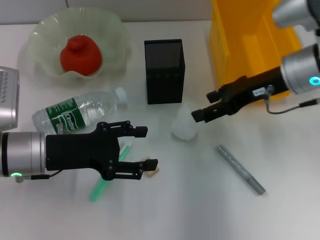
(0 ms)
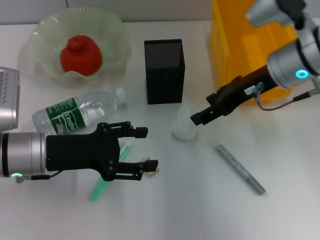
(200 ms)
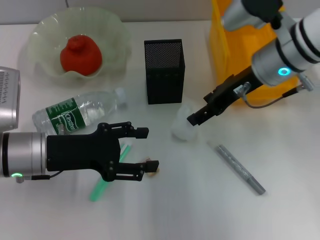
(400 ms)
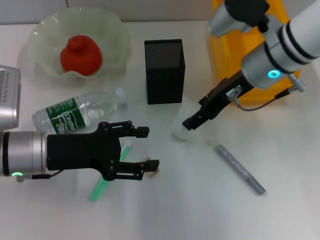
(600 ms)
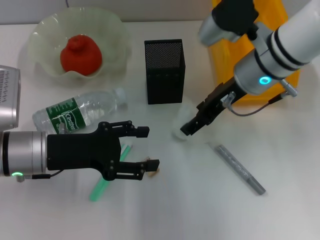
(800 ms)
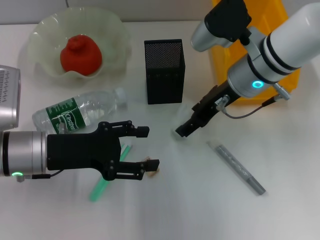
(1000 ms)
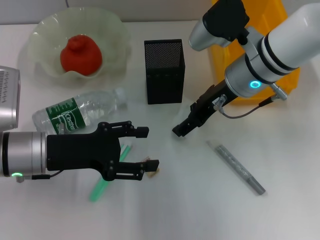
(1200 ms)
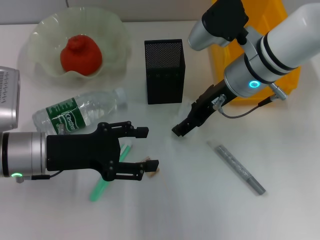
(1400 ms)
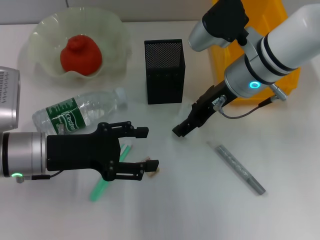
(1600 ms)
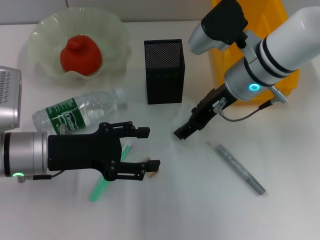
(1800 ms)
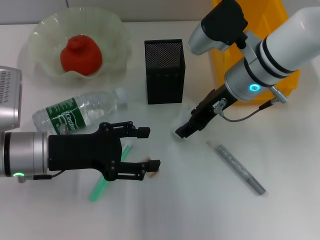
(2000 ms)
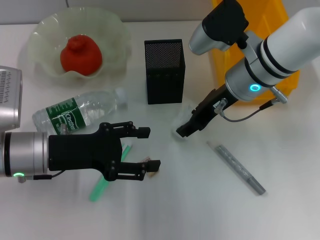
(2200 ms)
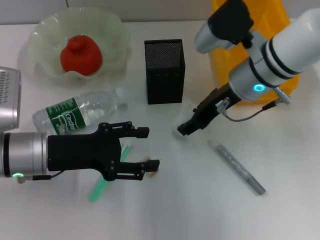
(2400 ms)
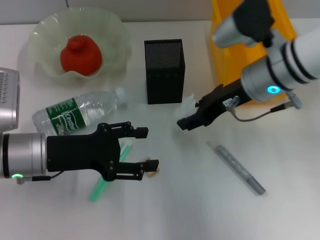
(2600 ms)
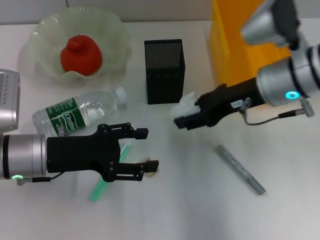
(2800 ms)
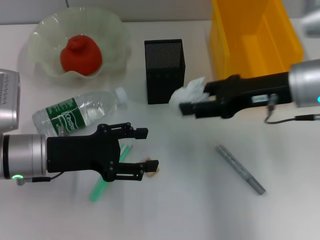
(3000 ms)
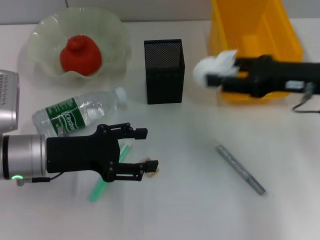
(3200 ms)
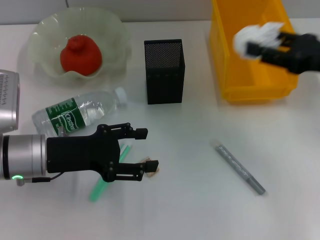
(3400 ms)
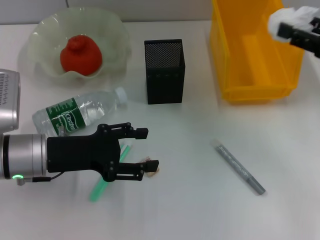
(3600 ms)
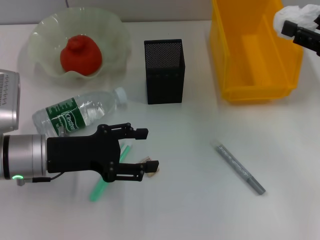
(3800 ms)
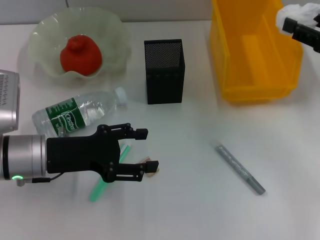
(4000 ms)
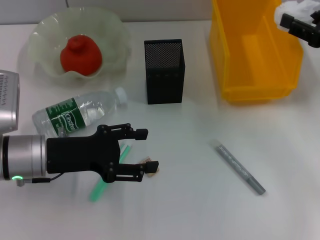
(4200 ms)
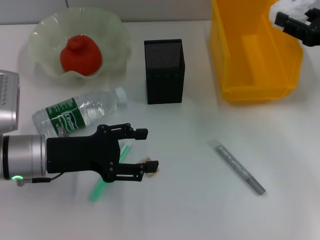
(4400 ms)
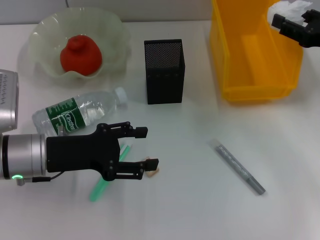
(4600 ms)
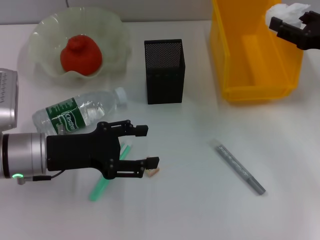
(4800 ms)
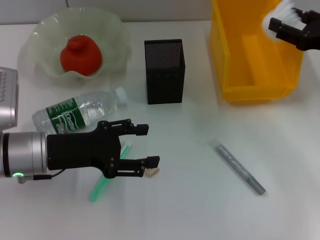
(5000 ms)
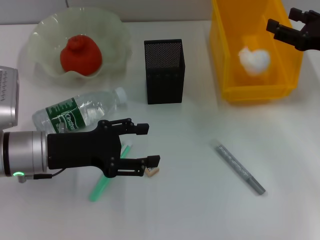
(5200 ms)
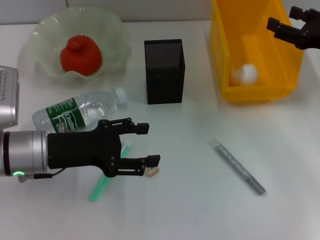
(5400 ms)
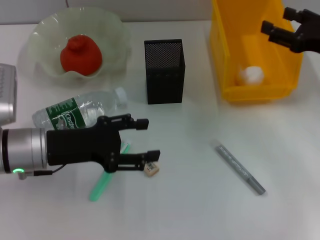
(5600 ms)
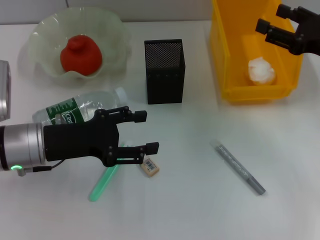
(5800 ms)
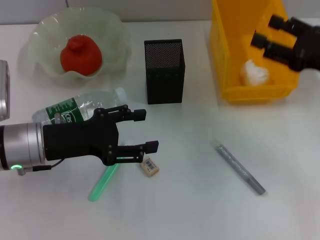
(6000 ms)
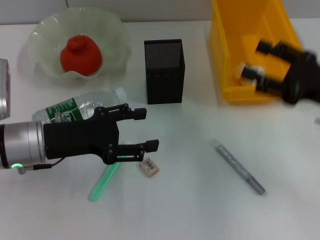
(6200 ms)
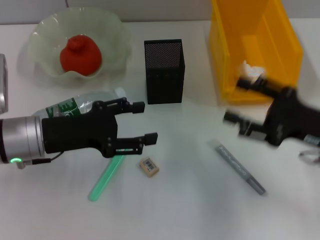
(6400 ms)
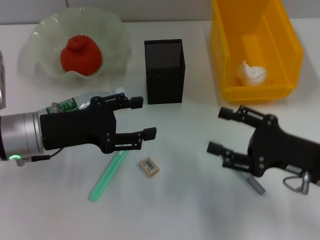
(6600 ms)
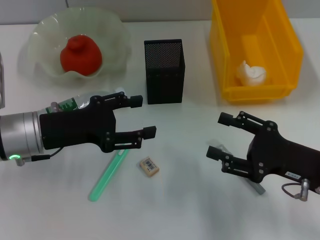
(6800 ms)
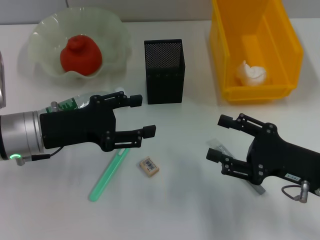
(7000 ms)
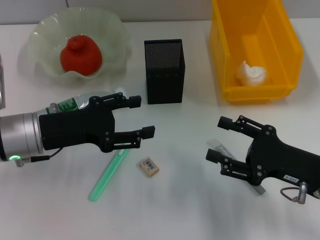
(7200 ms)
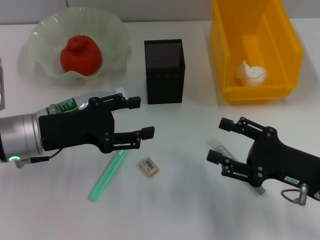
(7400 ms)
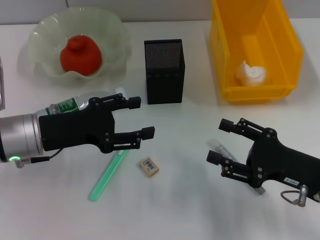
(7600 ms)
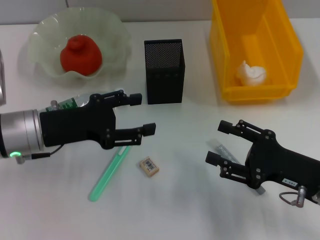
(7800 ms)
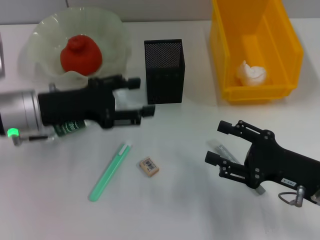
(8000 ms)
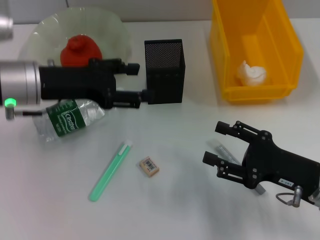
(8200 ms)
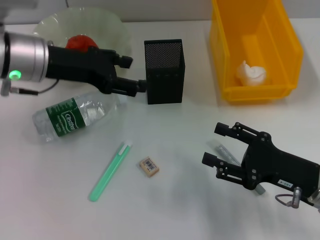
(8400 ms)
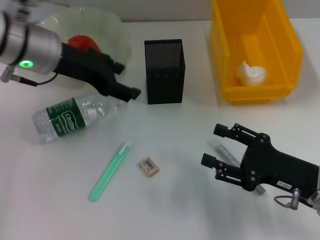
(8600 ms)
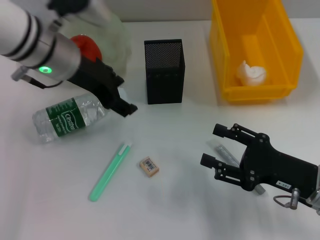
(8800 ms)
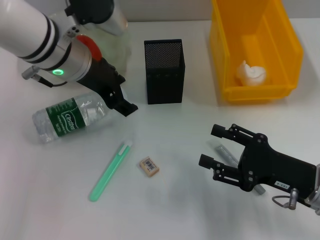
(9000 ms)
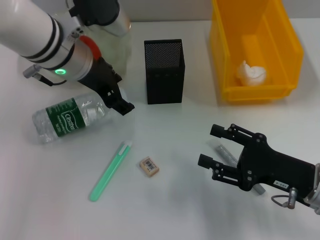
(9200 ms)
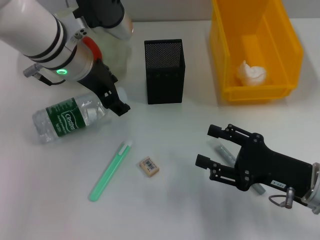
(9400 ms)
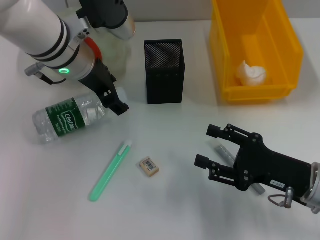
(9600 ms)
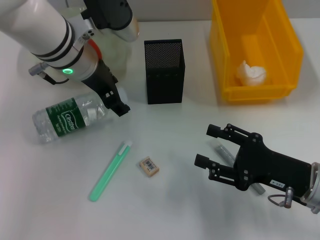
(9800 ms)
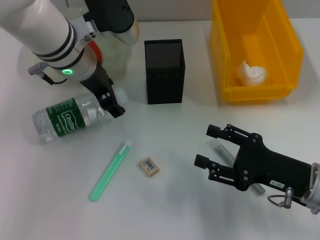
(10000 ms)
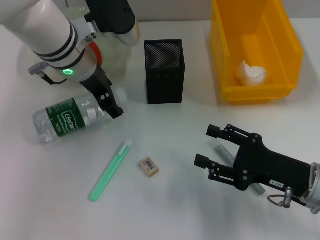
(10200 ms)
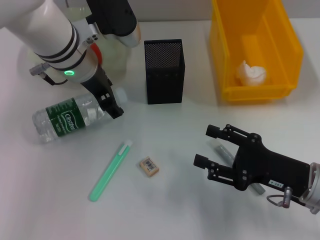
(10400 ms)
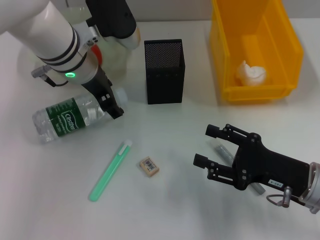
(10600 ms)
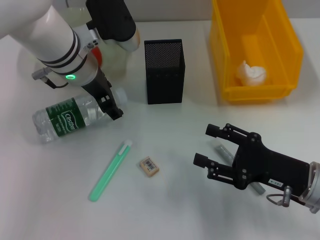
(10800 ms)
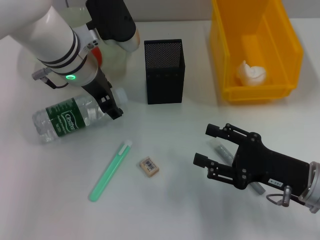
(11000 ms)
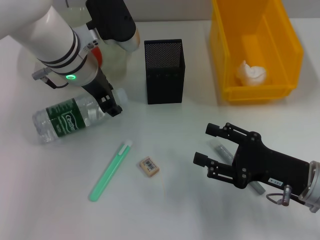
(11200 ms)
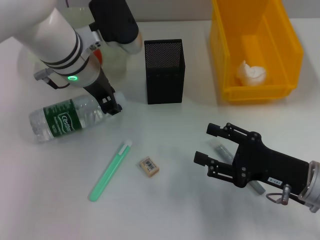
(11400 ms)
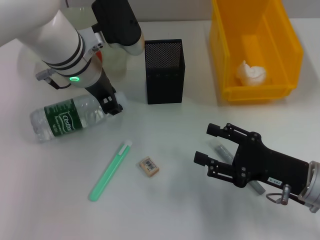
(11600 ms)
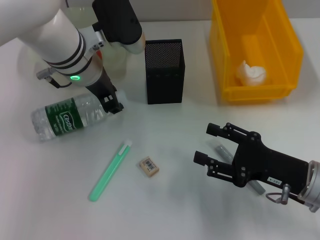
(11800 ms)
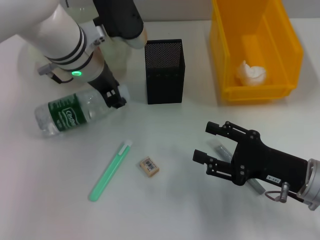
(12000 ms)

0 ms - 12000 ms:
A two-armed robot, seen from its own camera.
Step, 2000 ms - 5600 ms: Place the paper ball into the trash can with the right hand.
Step, 5800 ms - 11400 ms: Grab the water bottle with the left hand.
0 ms - 1600 ms: The right gripper shifts approximately 10 cm to the left.
1600 ms - 3000 ms: The right gripper shifts about 10 cm to the right and backward, and closes its fingers.
3000 ms - 4400 ms: The right gripper is displaced to the right by approximately 10 cm.
4400 ms - 6000 ms: The grippers move only a little.
6000 ms - 7600 ms: The right gripper heads backward and downward, covering roughly 15 cm.
7600 ms - 9000 ms: The left gripper heads forward, upward and to the right, covering approximately 15 cm.
9000 ms - 10400 ms: The grippers make only small movements.
10400 ms - 12000 ms: Both grippers stay about where they are.

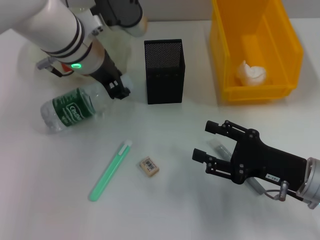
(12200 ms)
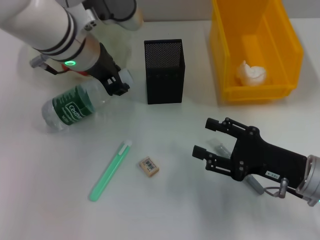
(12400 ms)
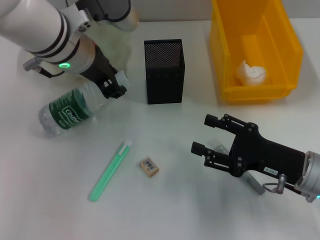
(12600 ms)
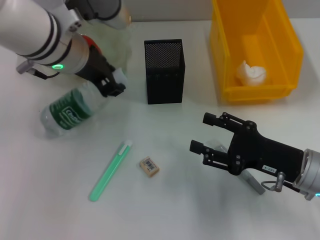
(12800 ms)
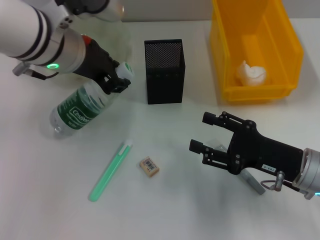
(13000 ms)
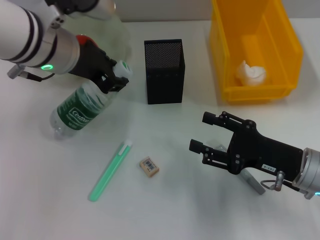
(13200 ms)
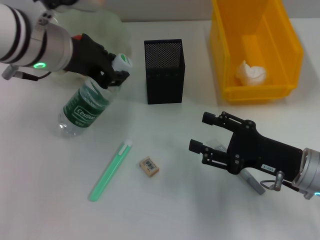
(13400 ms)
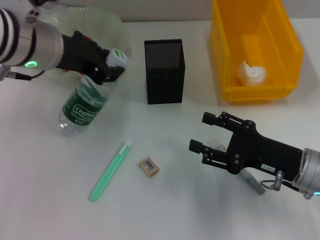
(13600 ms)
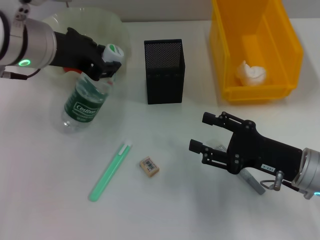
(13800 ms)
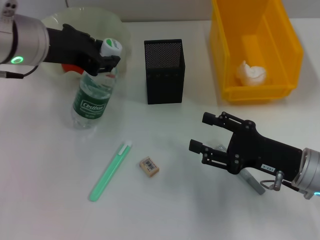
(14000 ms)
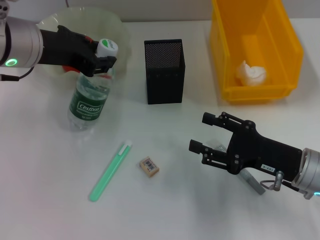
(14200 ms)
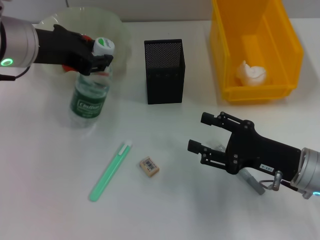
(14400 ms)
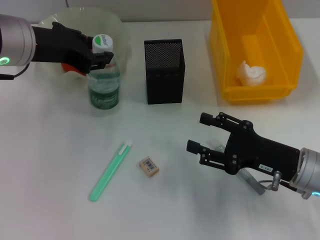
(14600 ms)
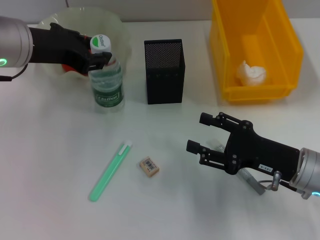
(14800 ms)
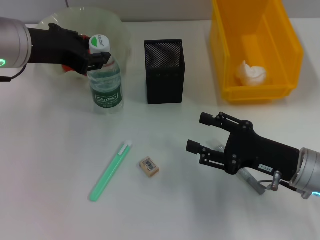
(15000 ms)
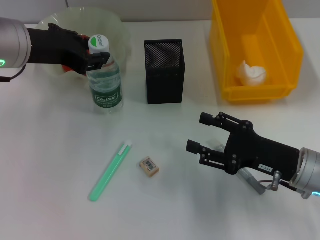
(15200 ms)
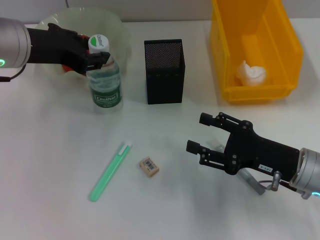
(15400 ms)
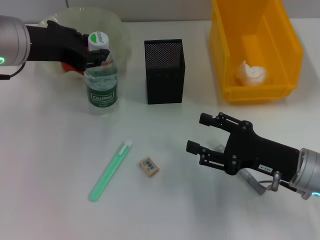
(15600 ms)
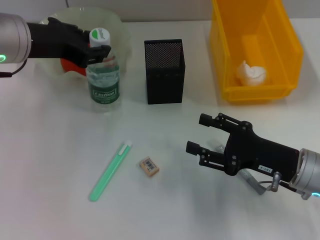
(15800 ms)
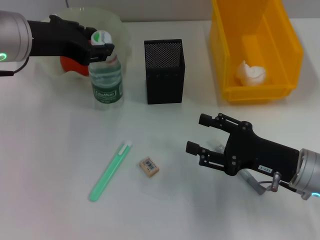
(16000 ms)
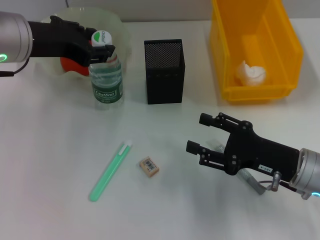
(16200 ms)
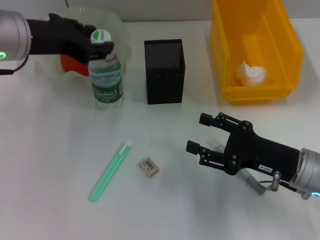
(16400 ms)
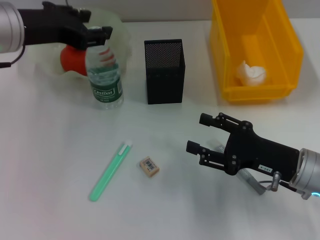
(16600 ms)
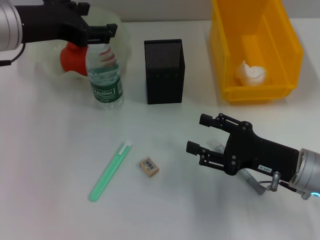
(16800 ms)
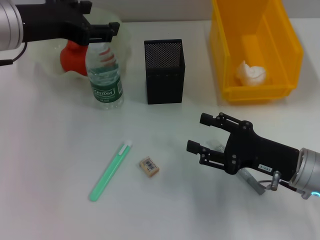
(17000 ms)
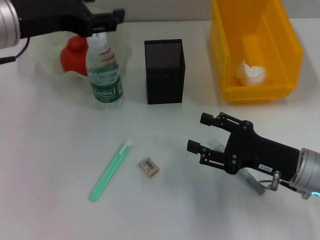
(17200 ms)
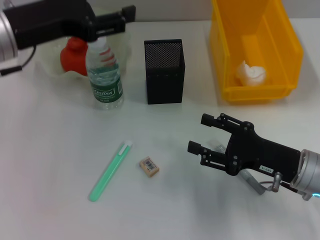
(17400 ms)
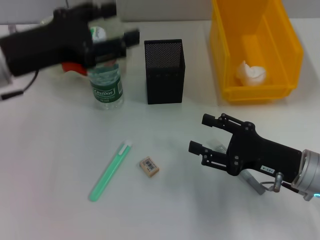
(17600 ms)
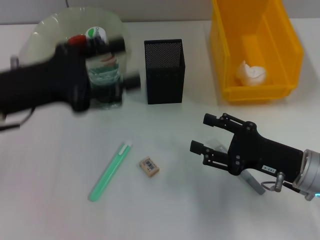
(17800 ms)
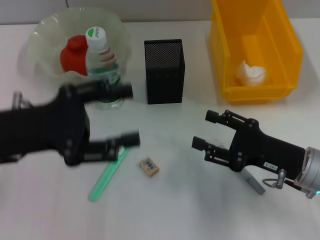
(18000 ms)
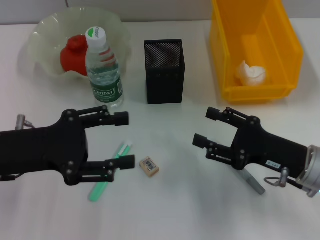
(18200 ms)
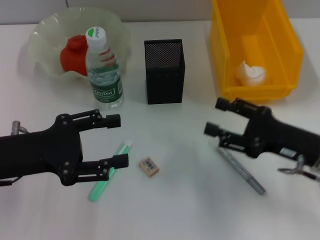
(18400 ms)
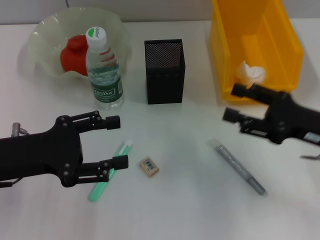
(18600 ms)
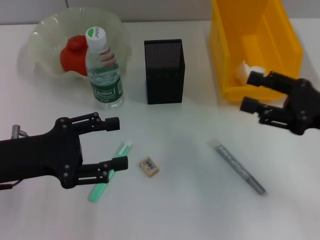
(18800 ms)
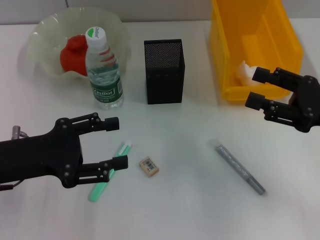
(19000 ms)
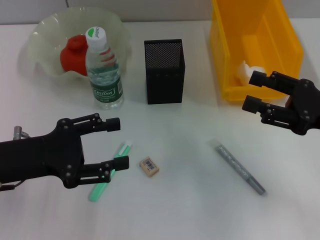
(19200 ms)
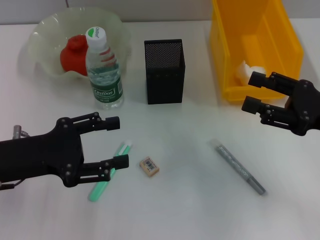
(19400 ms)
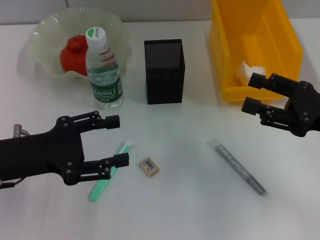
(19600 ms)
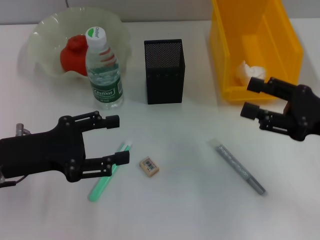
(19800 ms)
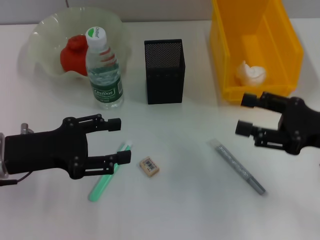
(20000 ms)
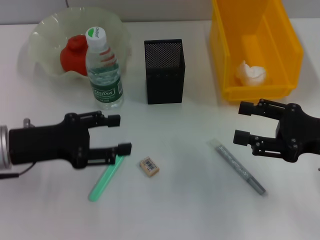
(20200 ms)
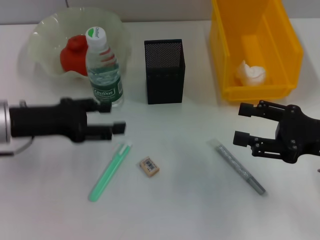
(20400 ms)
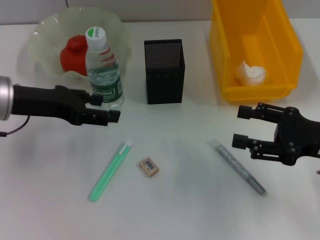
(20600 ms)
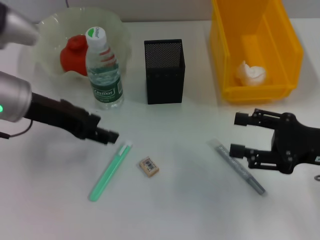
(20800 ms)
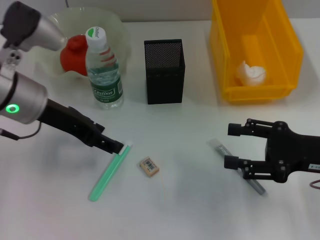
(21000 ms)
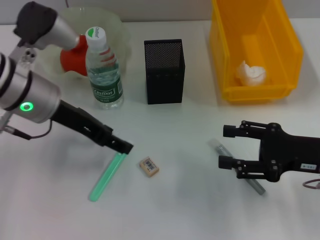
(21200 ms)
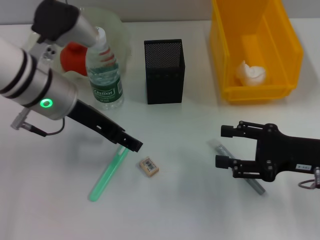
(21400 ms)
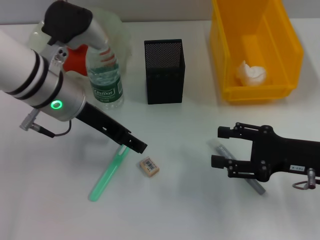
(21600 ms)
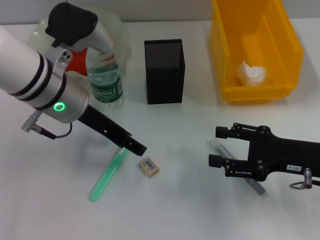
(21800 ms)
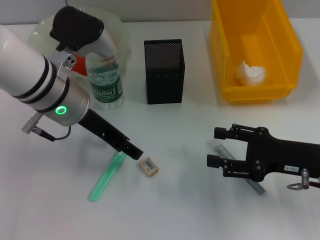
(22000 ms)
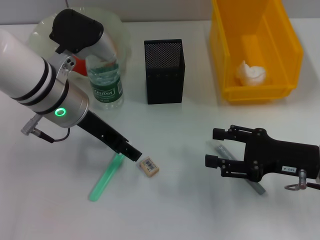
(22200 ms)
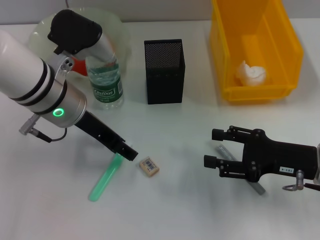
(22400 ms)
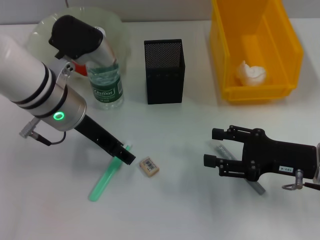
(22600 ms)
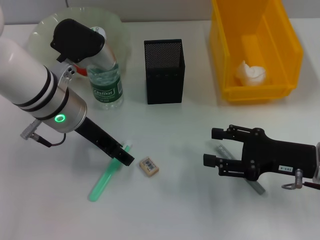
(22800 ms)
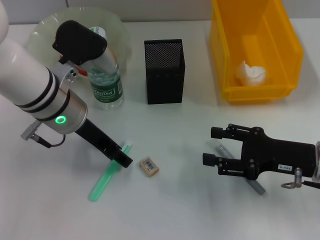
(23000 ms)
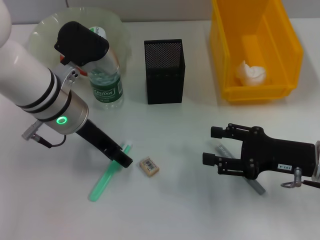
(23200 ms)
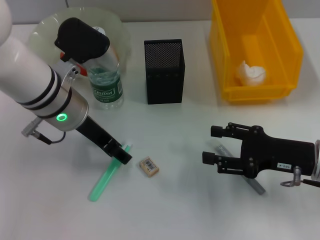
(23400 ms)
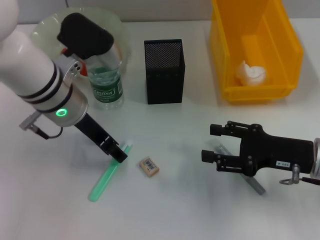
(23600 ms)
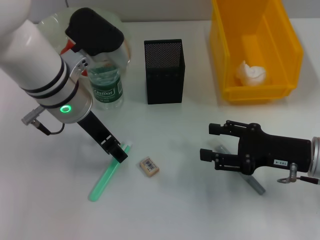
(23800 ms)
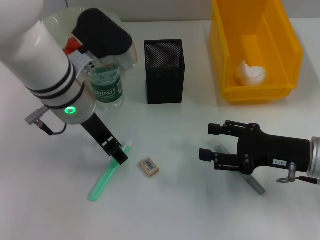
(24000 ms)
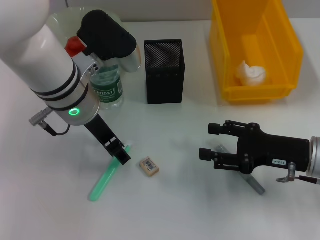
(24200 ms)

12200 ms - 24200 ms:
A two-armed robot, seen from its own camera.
Step, 12200 ms - 14800 ms: Place the water bottle on the table with the left hand.
12200 ms - 13800 ms: The left gripper travels to the left by about 5 cm.
13800 ms - 16600 ms: There are only small adjustments of the grippers.
16600 ms - 18200 ms: The left gripper heads backward and downward, covering about 15 cm.
18200 ms - 19800 ms: The right gripper is displaced upward and to the right by roughly 10 cm.
19800 ms - 21200 ms: The left gripper heads forward, to the right and upward, covering about 15 cm.
21200 ms - 22600 ms: The grippers make only small movements.
22600 ms - 24200 ms: The grippers move only a little.
